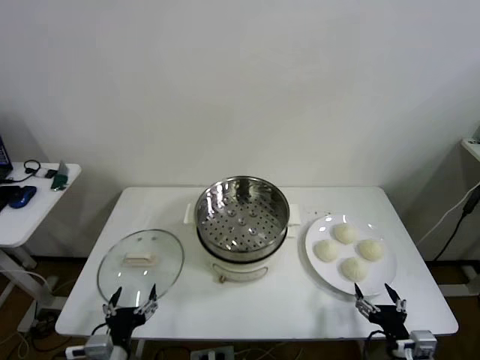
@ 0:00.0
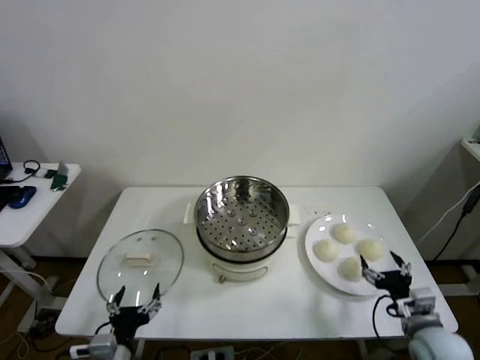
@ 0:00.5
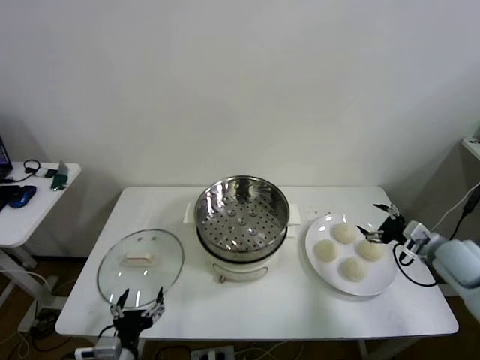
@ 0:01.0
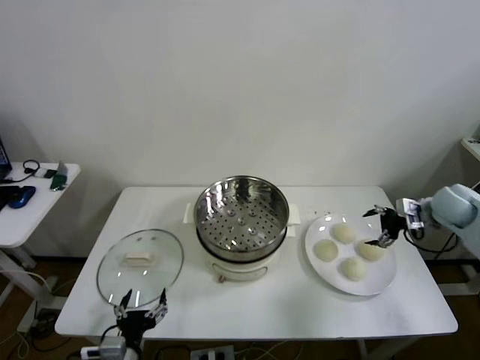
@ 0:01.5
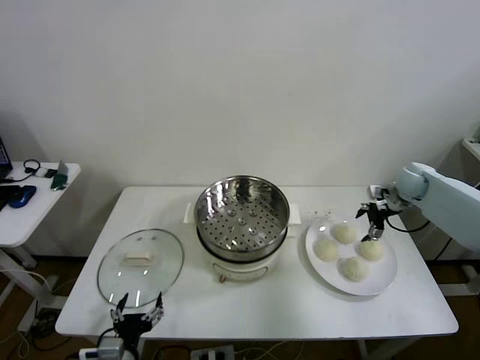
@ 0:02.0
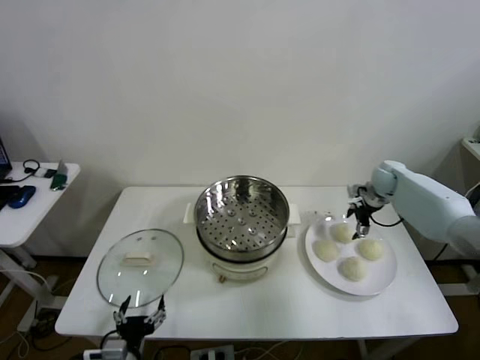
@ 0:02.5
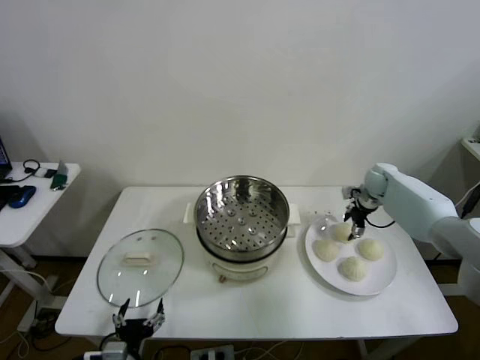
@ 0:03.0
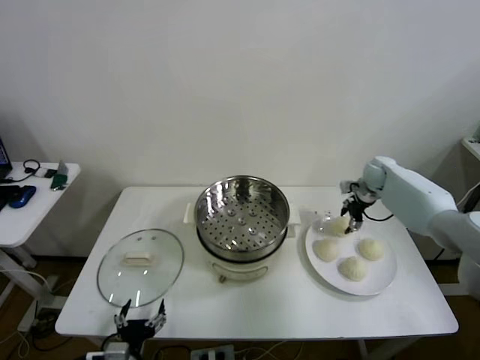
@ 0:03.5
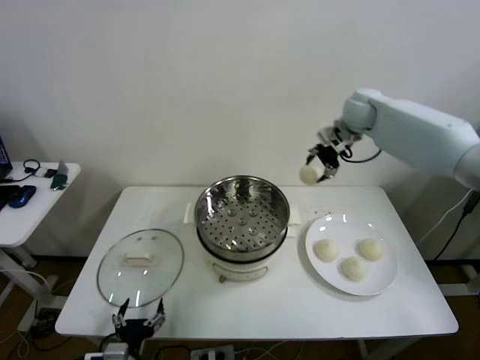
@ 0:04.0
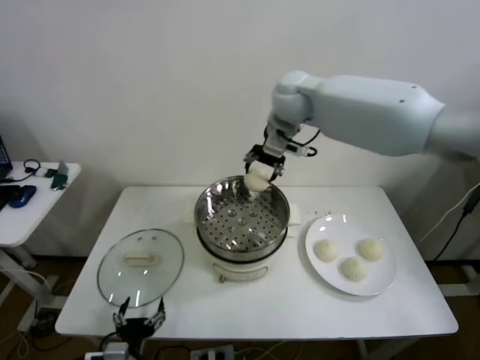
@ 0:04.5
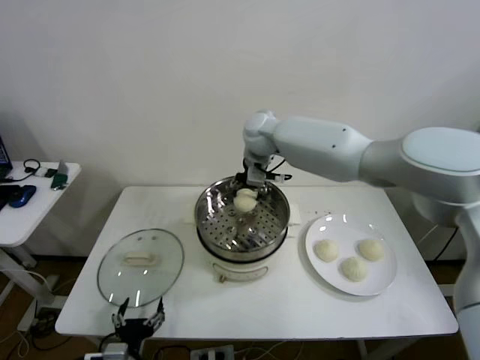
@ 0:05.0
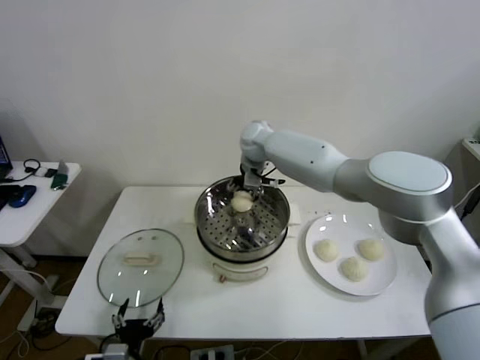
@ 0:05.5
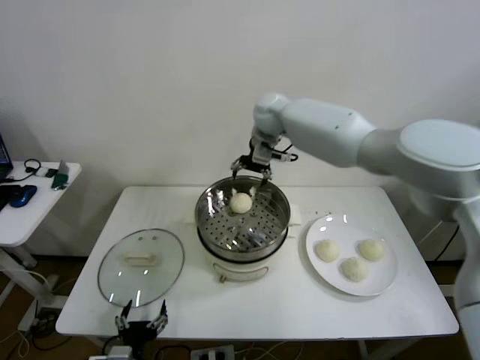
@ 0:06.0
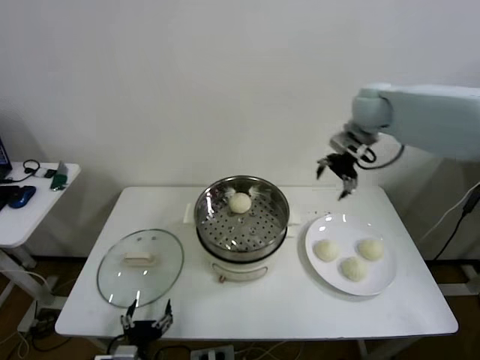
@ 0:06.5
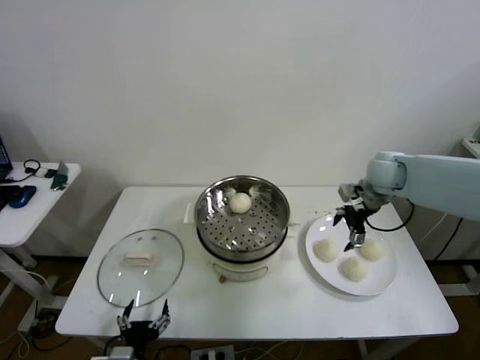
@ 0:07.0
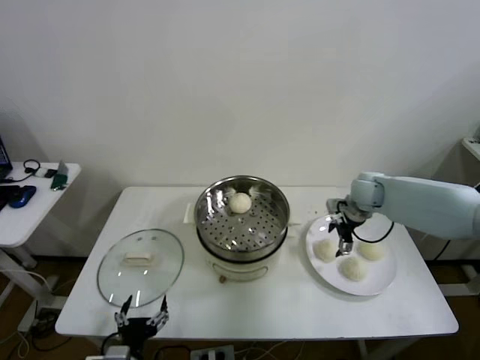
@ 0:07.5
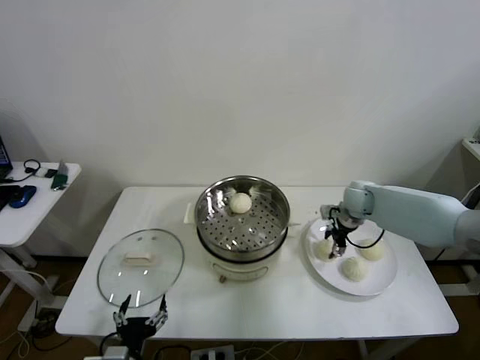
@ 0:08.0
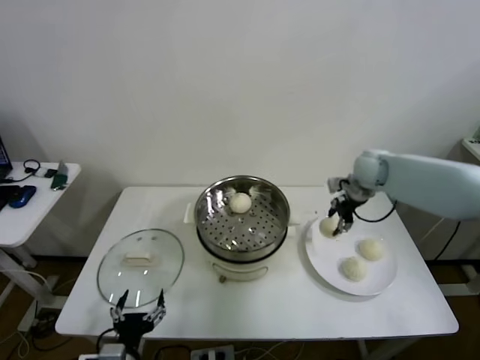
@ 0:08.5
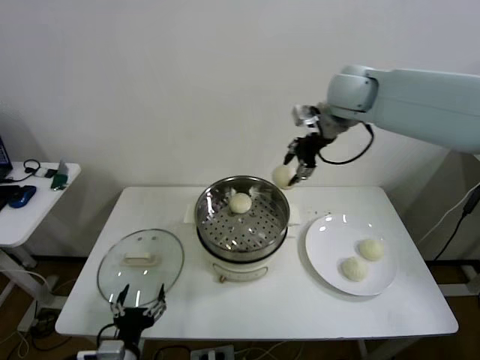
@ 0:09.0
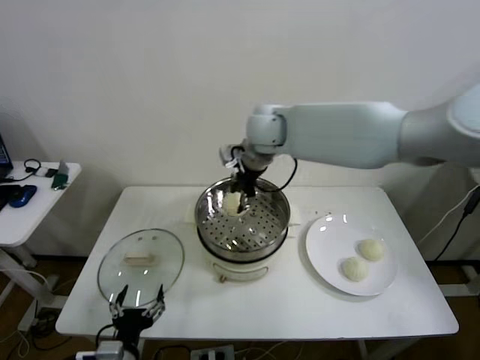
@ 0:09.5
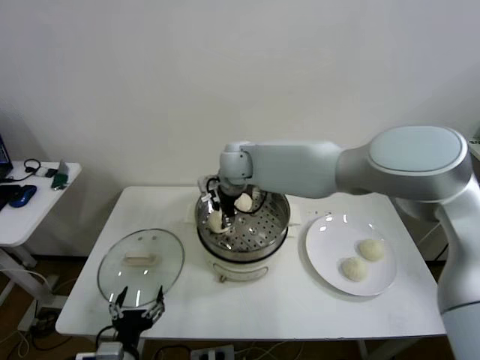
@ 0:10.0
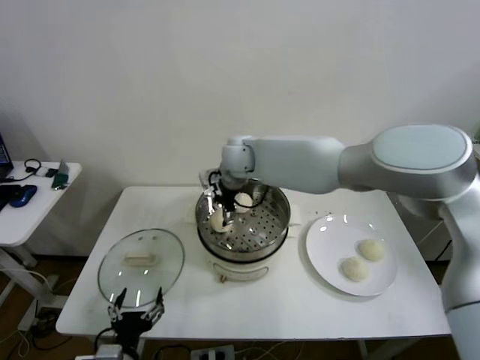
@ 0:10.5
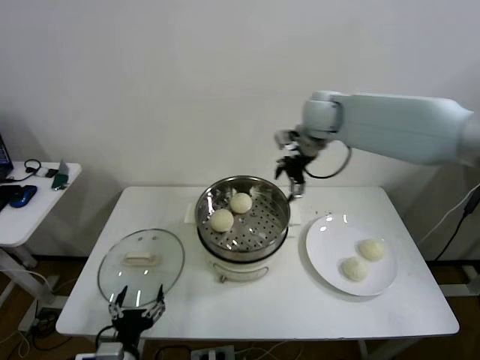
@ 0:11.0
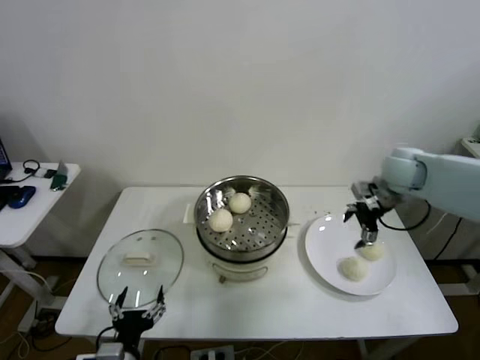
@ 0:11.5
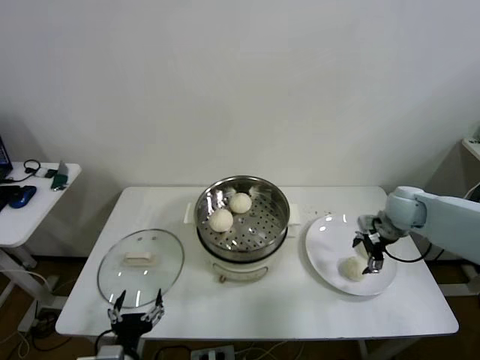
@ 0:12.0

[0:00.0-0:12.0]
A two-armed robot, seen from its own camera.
Step, 0:00.0 to 0:03.0: Grasp the baozi in the plate with right gripper.
Step, 0:03.5 to 0:05.5: Place the baozi on the steamer with right gripper.
Step, 0:06.0 to 0:08.0: Grasp the baozi in the plate with right gripper.
Step, 0:08.5 to 0:10.0: Place the baozi on the steamer with right gripper.
0:02.0 to 0:04.0: The right gripper travels upward and to the left by about 30 cm, and closes up.
0:04.0 to 0:06.0: The right gripper heads to the left, covering approximately 15 cm, and opens its fingers.
0:06.0 to 0:08.0: The right gripper goes approximately 30 cm downward and to the right, and closes up.
0:08.0 to 0:10.0: The right gripper travels to the left by approximately 35 cm.
0:10.0 to 0:12.0: The right gripper travels to the right by approximately 40 cm, and opens its fingers.

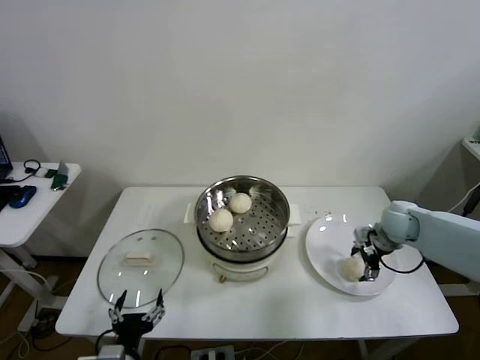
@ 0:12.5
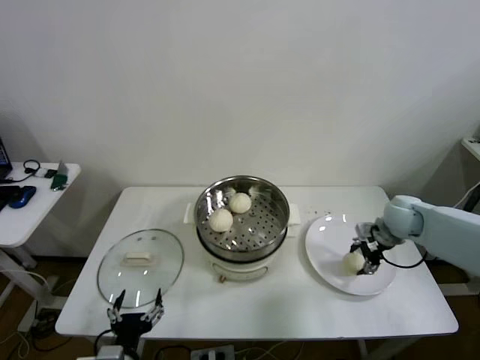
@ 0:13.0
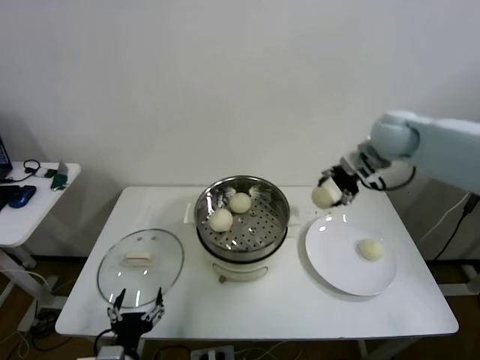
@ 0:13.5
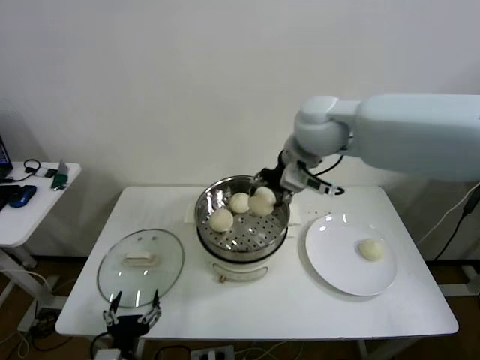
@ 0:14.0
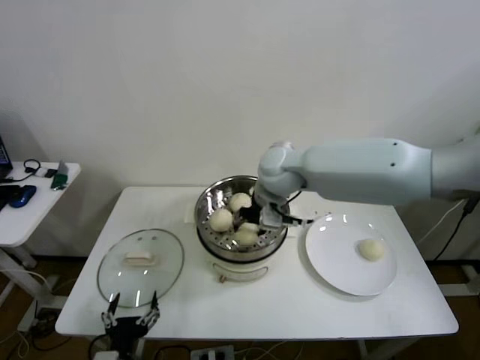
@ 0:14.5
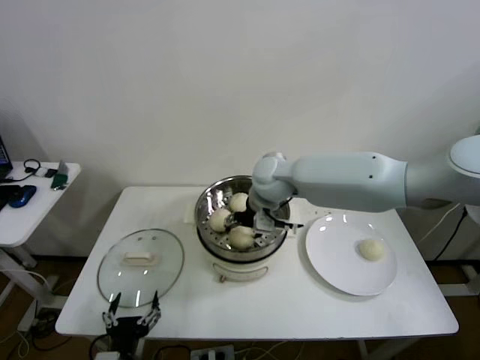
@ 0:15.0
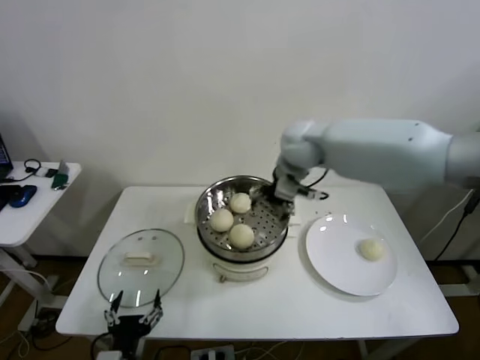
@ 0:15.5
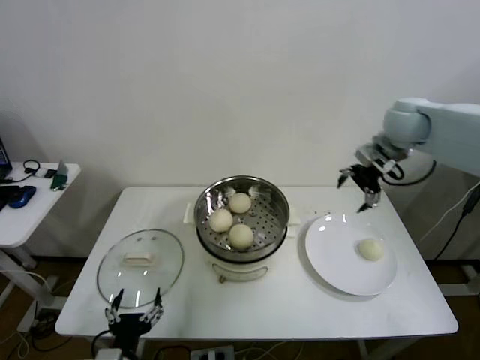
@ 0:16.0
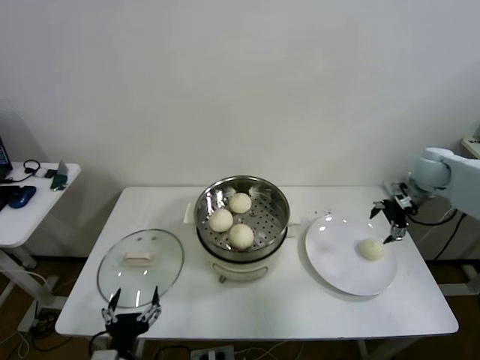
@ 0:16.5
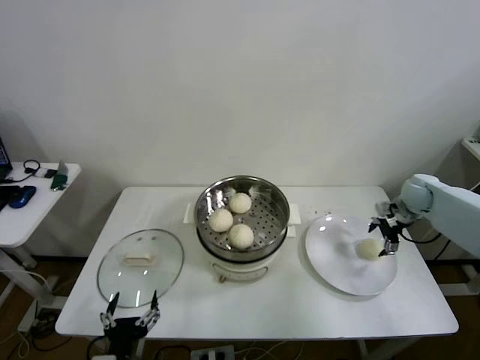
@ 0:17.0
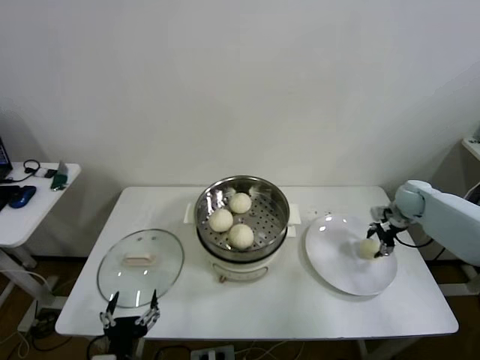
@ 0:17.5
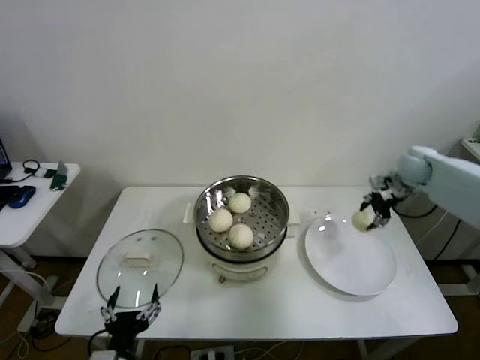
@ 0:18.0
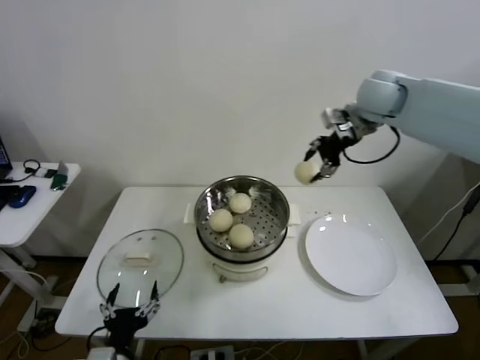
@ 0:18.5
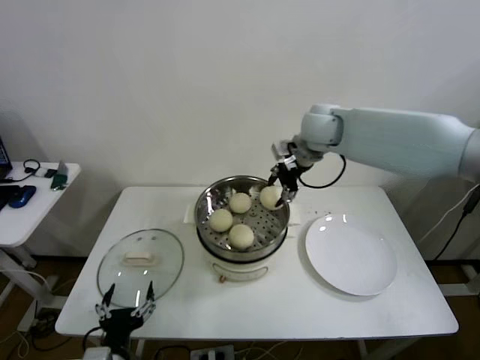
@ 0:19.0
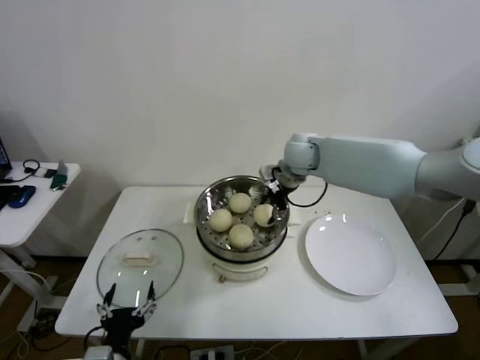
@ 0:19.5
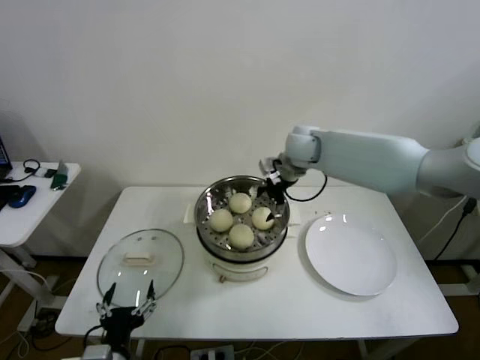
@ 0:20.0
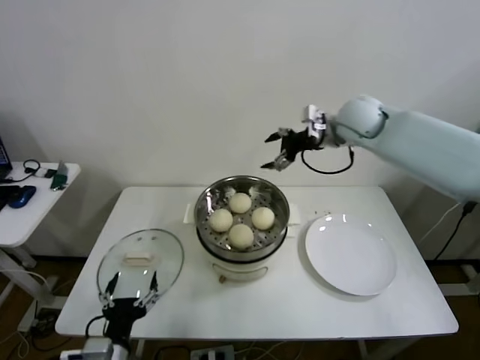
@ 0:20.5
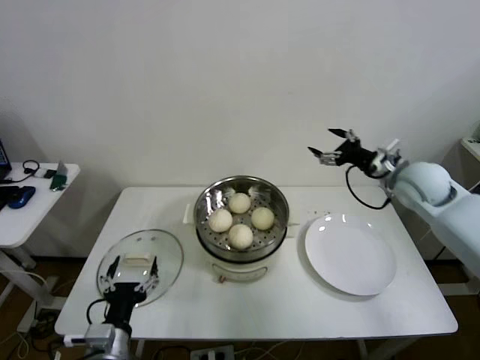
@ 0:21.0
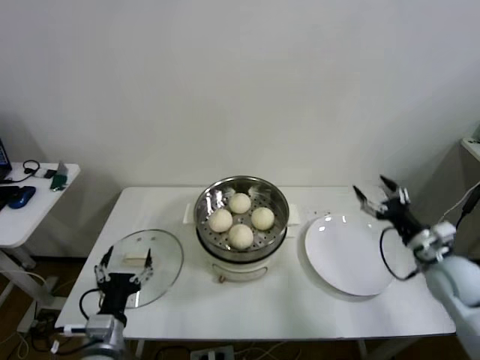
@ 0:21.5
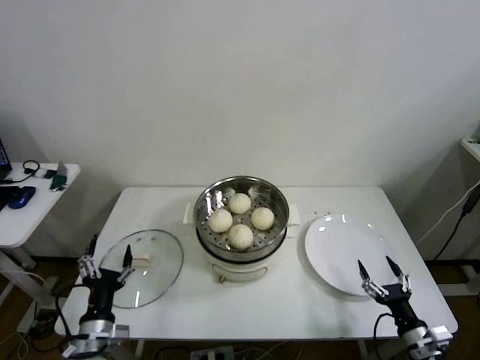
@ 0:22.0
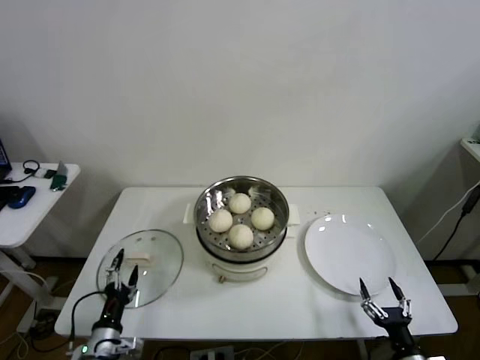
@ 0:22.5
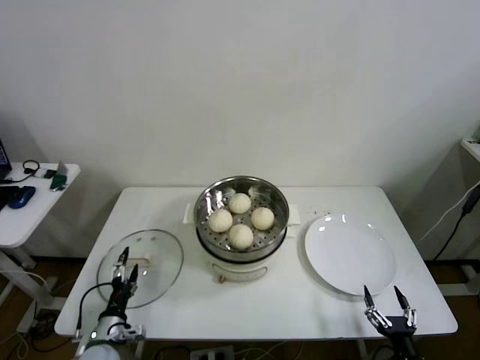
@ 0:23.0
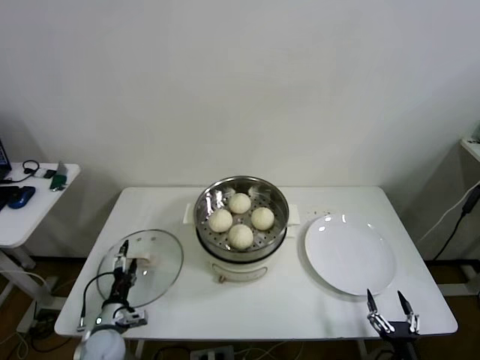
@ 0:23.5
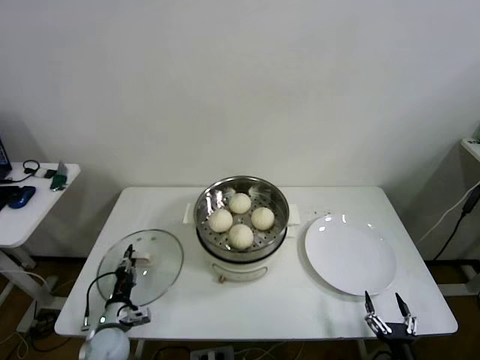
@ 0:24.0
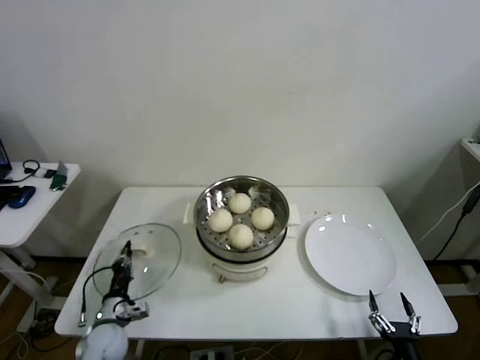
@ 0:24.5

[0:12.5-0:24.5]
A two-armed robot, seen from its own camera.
Step, 0:13.0 to 0:14.5: Place the baozi on the steamer with right gripper.
Step, 0:15.0 to 0:17.0: Grasp the baozi in the plate with right gripper.
Step, 0:17.5 to 0:19.5: Place the baozi on the steamer with right gripper.
Step, 0:20.0 to 0:24.0: Grasp the pot lid with left gripper.
0:12.5 to 0:14.5: The right gripper shifts some 35 cm to the left and upward, and closes its fingers.
0:14.5 to 0:16.5: The right gripper is displaced to the right by approximately 35 cm, and opens up.
0:16.5 to 0:18.5: The right gripper heads to the left and upward, covering approximately 25 cm, and closes.
0:18.5 to 0:20.5: The right gripper heads downward, covering about 5 cm, and opens.
0:20.5 to 0:22.5: The left gripper moves downward, to the left and forward, approximately 15 cm. The right gripper heads backward and downward, covering roughly 60 cm.
0:22.5 to 0:24.5: The left gripper is displaced forward by roughly 10 cm, and closes its fingers.

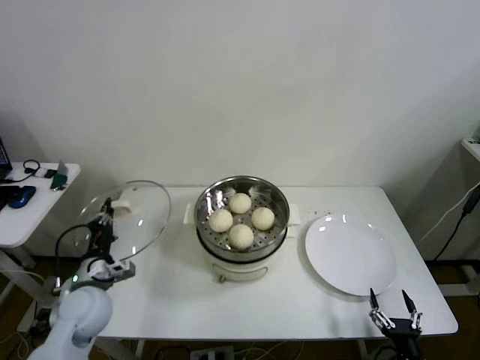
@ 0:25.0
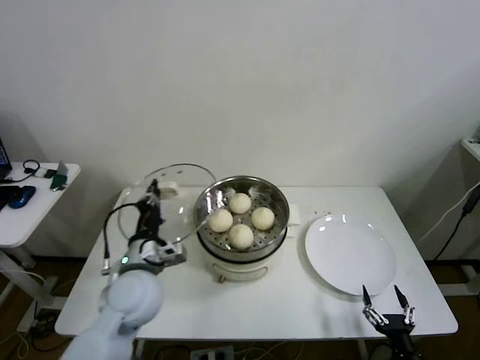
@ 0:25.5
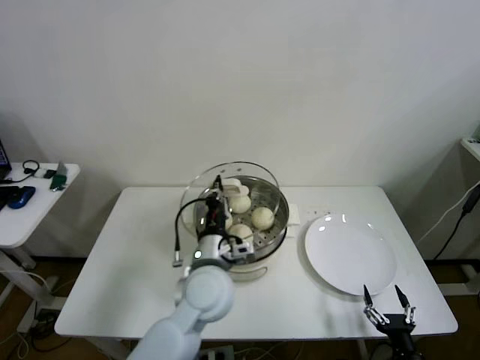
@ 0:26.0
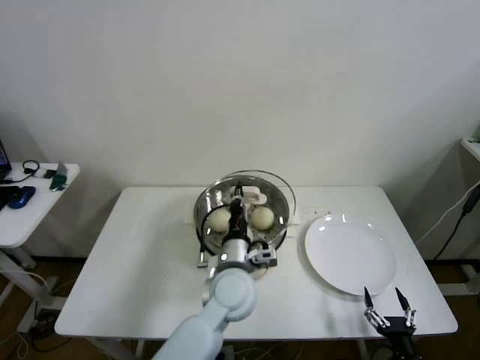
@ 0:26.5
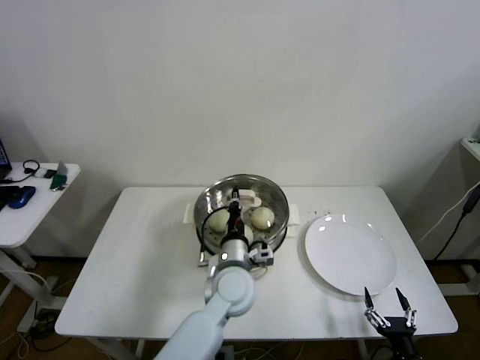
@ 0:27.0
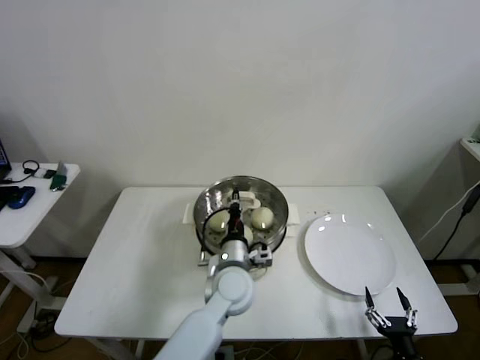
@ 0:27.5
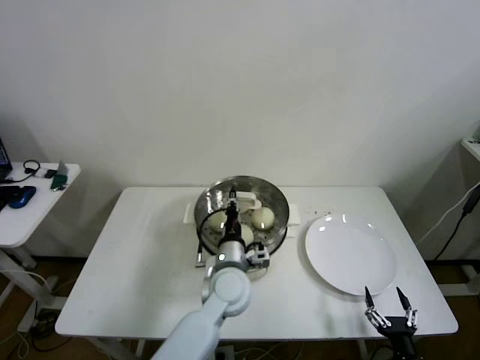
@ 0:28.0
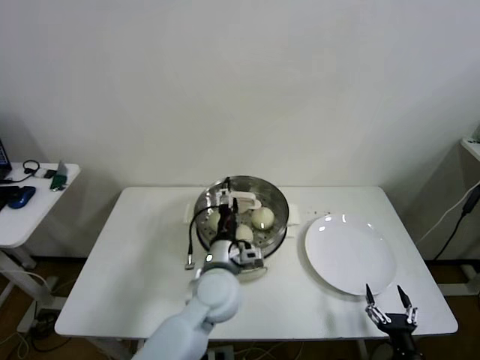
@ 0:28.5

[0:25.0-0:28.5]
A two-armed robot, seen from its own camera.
Step, 0:25.0 to 0:27.5: Place the pot lid on the steamer with left gripper.
0:25.0 to 0:27.0: The left gripper is displaced to the right by about 30 cm.
0:27.0 to 0:28.5: The left gripper opens.
